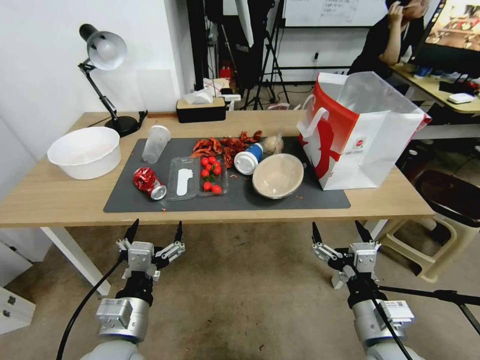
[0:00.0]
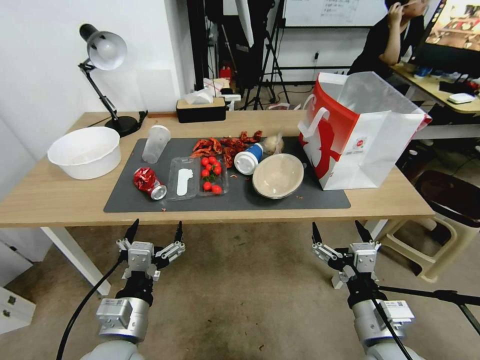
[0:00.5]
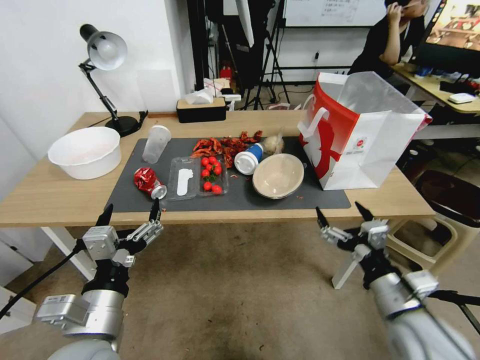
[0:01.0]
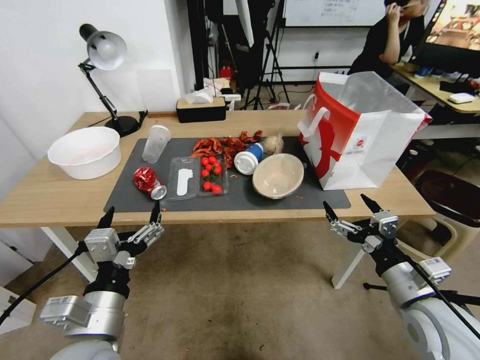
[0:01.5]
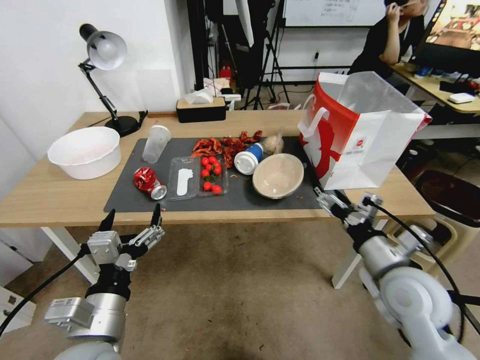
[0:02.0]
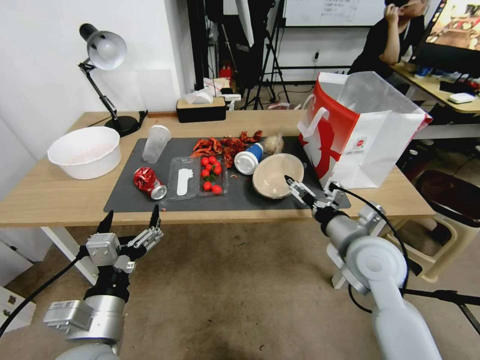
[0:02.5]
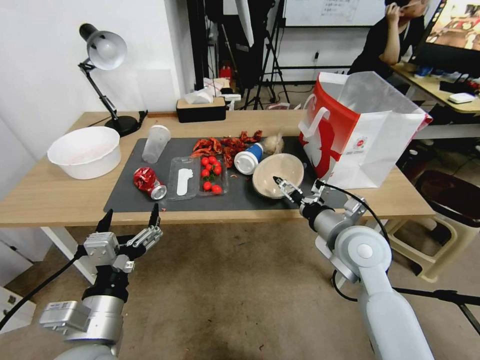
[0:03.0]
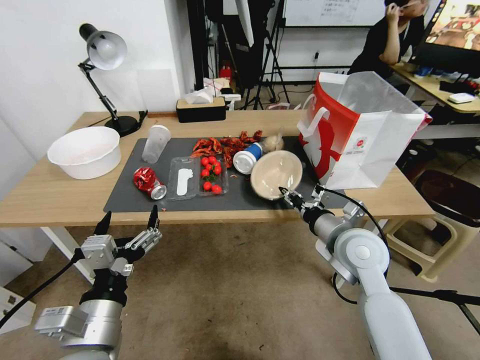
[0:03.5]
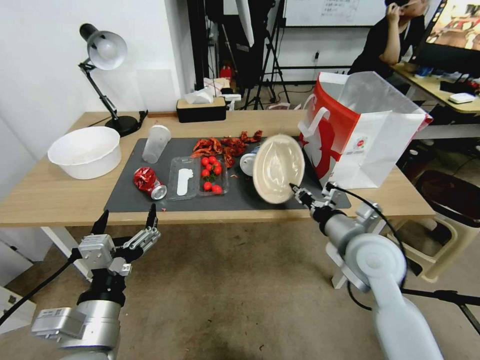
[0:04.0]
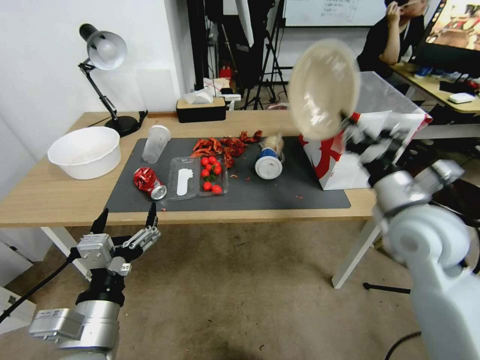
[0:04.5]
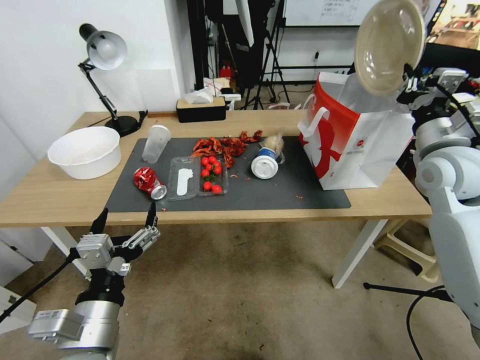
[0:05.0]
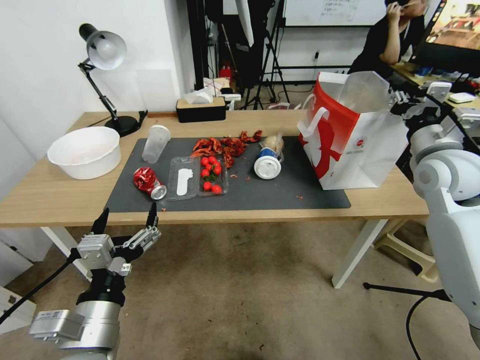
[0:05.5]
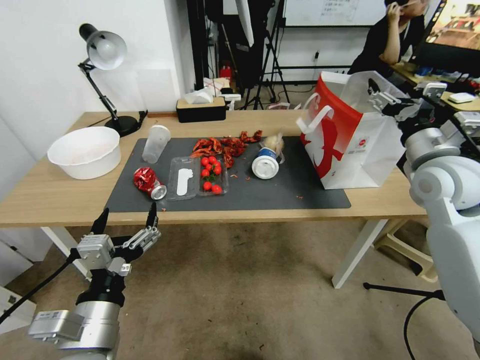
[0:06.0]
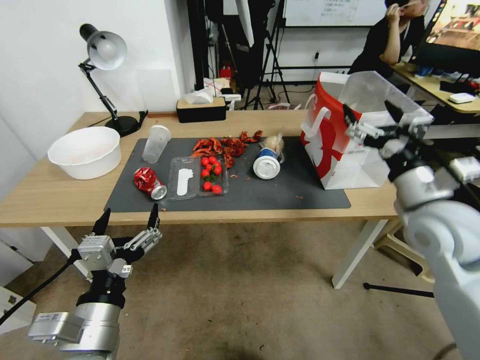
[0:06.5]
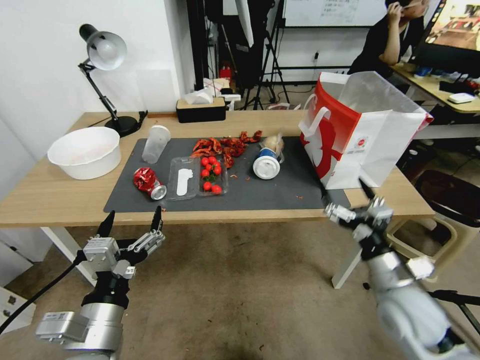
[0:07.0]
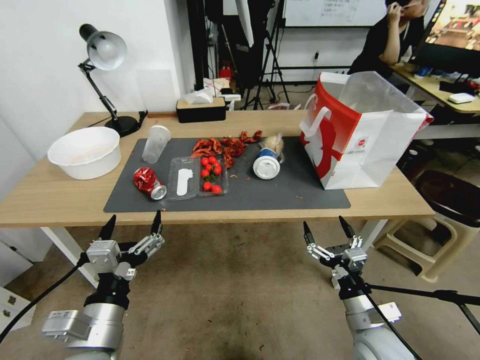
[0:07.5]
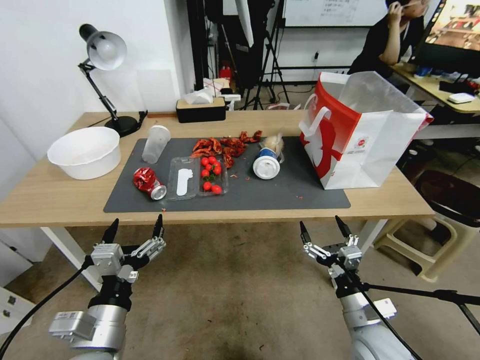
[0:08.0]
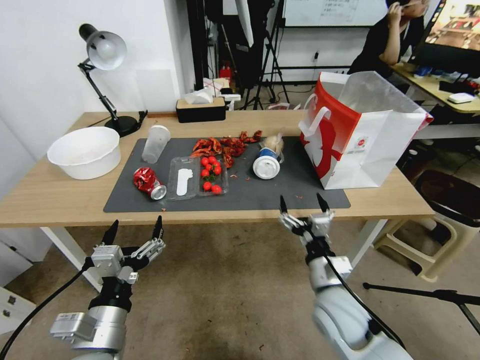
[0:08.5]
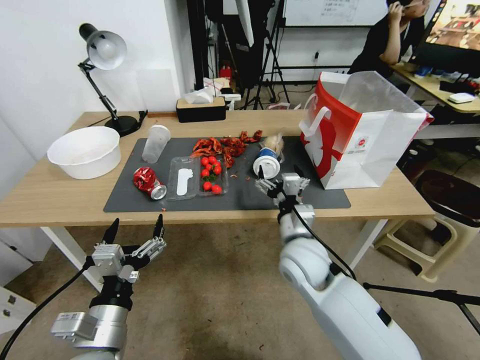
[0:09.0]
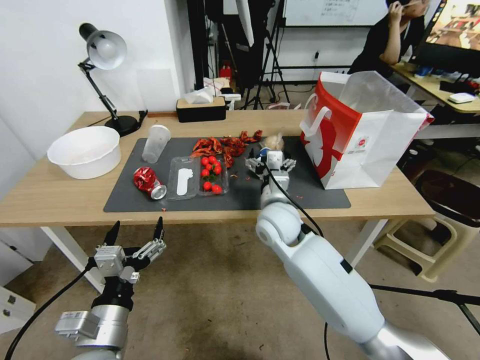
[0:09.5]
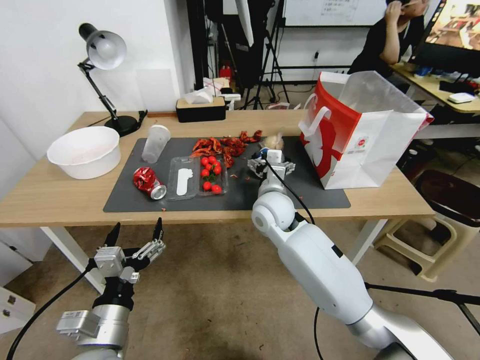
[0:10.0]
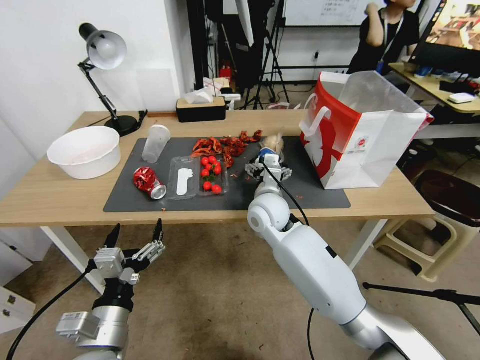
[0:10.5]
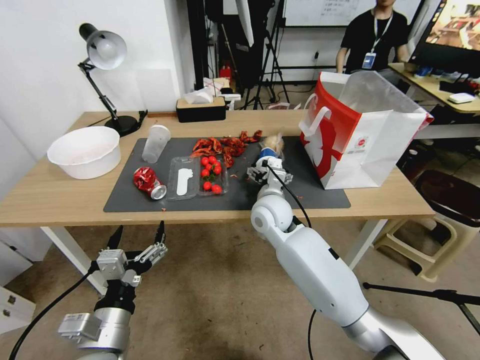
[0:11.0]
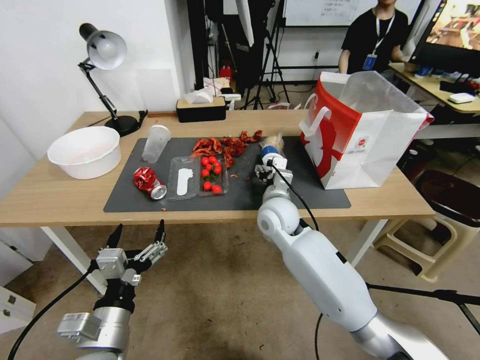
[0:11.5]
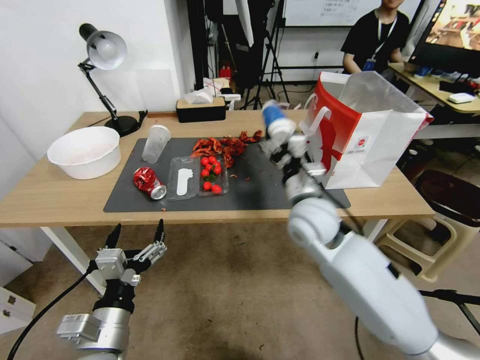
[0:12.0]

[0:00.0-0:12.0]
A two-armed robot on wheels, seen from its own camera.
0:02.0 to 0:04.0: The right gripper shifts roughly 10 cm forward and to the left, and closes up.
0:04.0 to 0:06.0: The right gripper shifts some 20 cm upward, to the right and forward, and opens up.
0:06.0 to 0:08.0: The right gripper goes roughly 35 cm downward and backward.
0:08.0 to 0:10.0: The right gripper goes roughly 35 cm forward, to the left and upward.
0:10.0 to 0:12.0: The right gripper moves to the right, some 5 cm, and closes up.

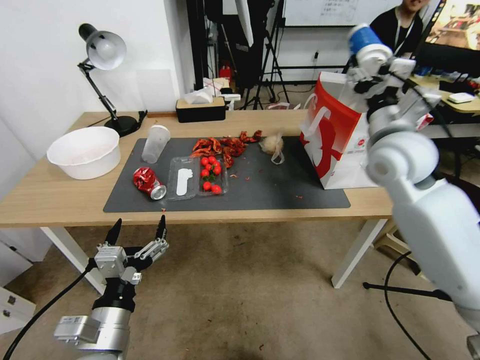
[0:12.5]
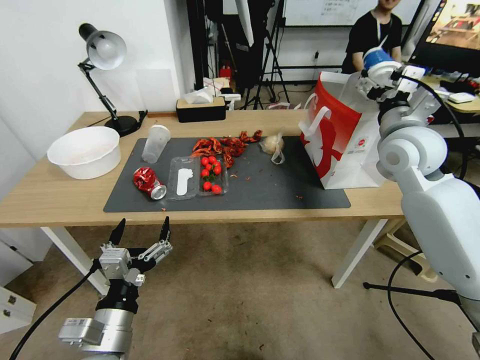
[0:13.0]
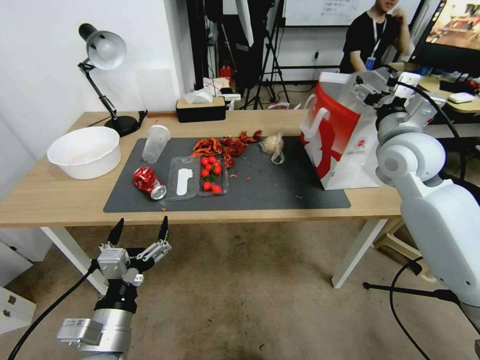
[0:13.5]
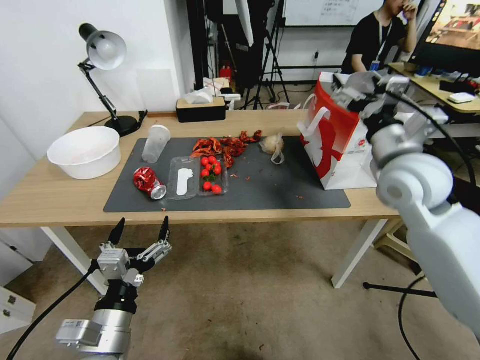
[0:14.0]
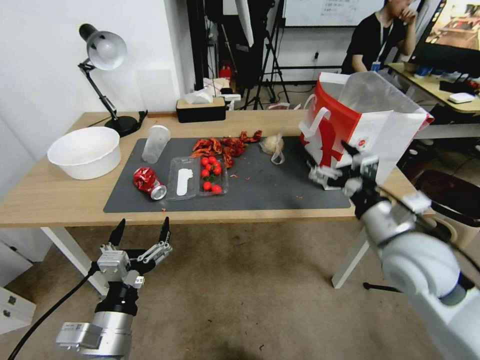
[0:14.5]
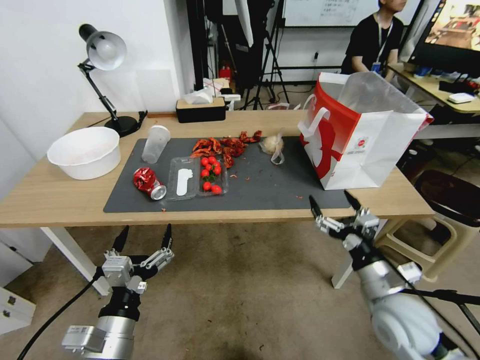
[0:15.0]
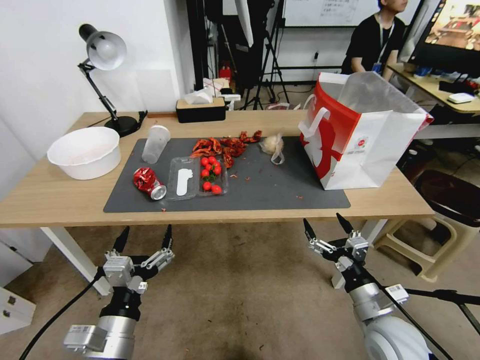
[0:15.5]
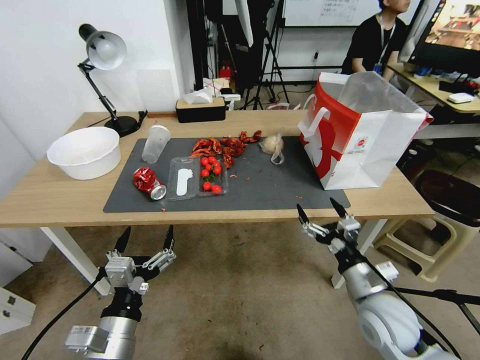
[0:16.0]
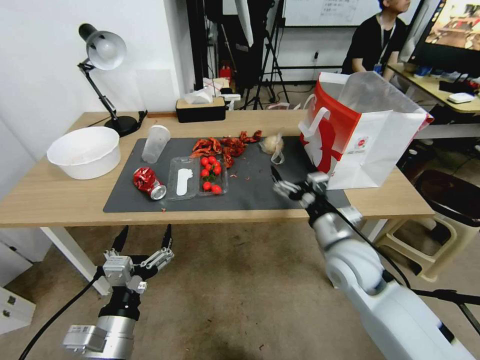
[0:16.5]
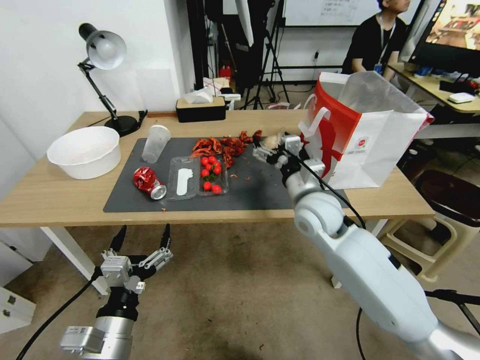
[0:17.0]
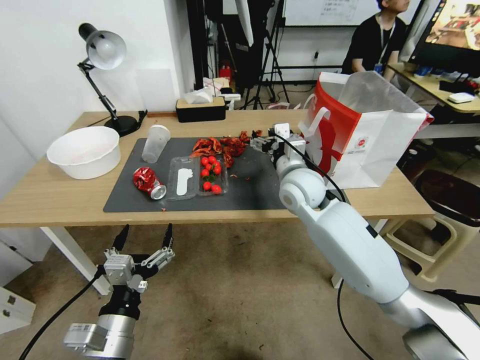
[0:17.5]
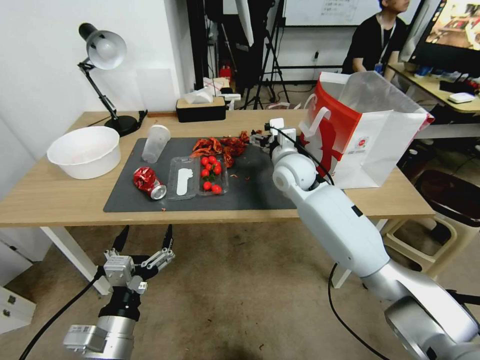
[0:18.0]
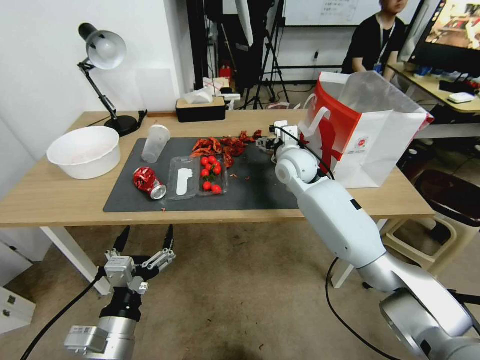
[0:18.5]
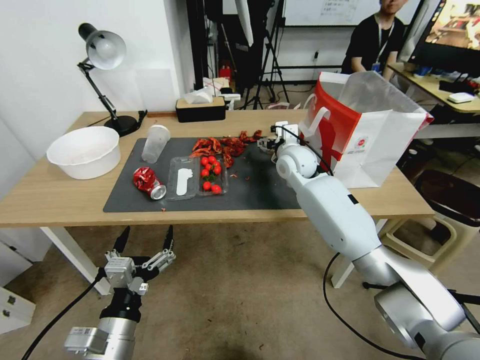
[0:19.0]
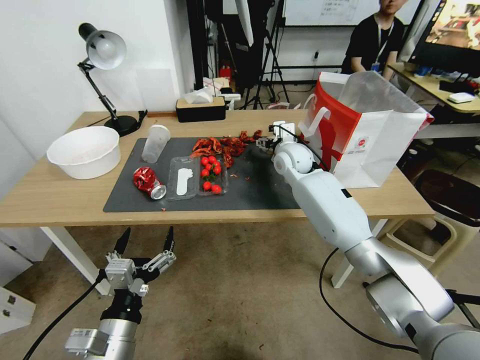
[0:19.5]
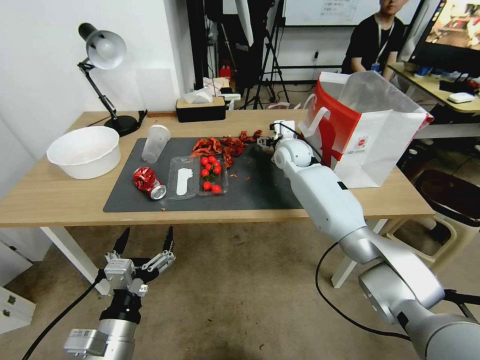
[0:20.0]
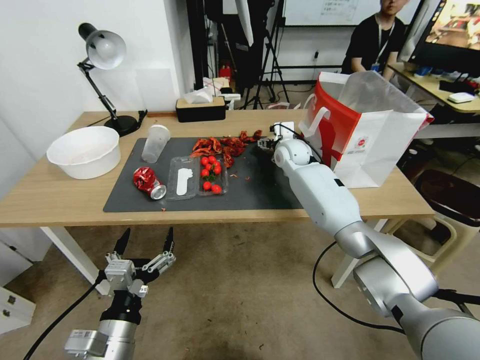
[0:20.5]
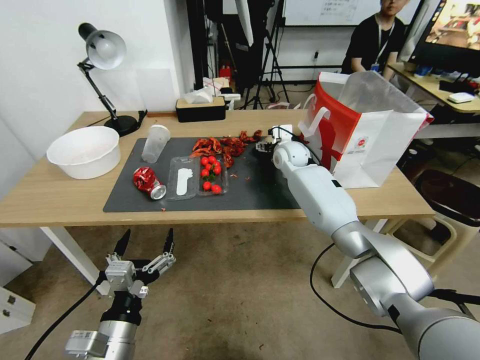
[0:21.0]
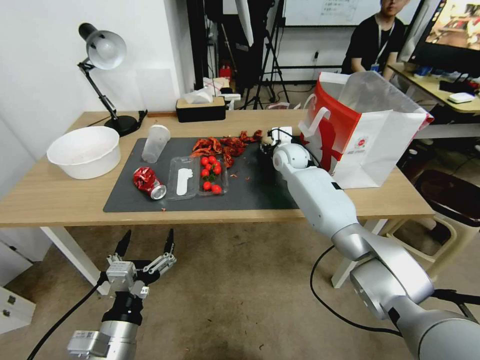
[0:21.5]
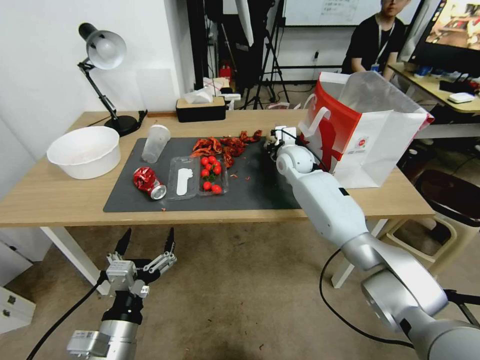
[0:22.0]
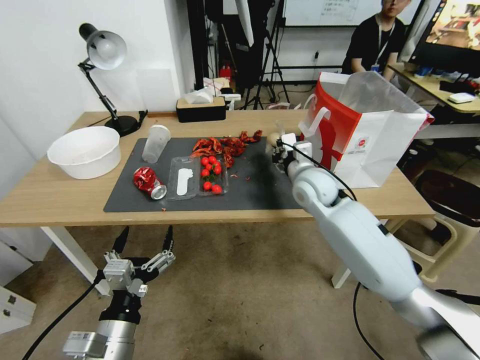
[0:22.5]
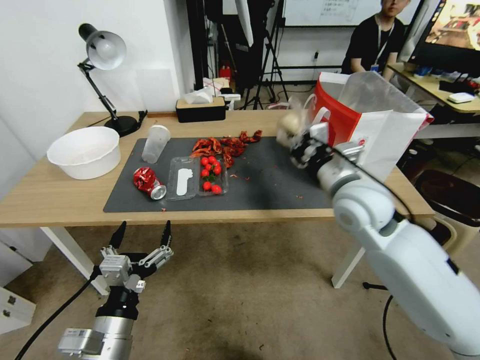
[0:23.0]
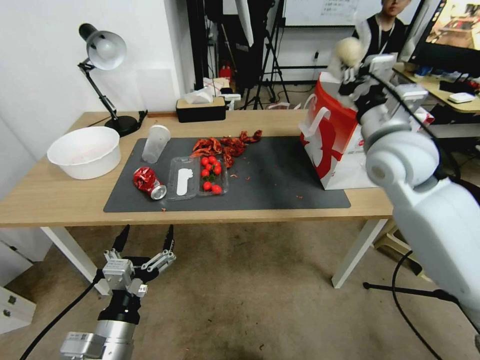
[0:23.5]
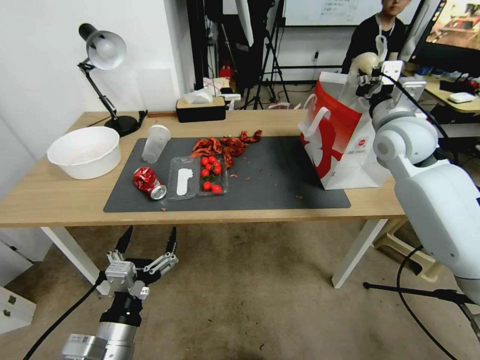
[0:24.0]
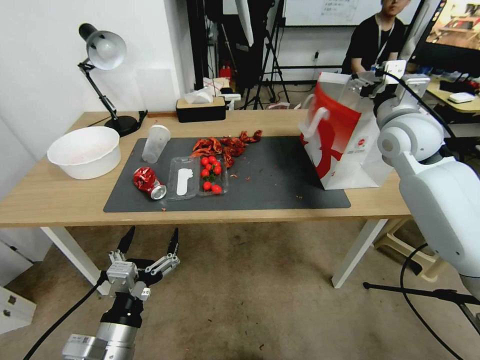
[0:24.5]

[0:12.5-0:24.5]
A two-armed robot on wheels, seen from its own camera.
0:12.5 to 0:14.5: The right gripper is displaced backward, downward and to the right by about 15 cm, and opens up.
0:14.5 to 0:16.5: The right gripper goes about 10 cm downward and to the left.
0:16.5 to 0:18.5: The right gripper travels forward by about 20 cm.
0:18.5 to 0:20.5: The right gripper shifts some 10 cm forward.
0:20.5 to 0:22.5: The right gripper moves backward, some 10 cm, and closes.
0:22.5 to 0:24.5: The right gripper heads upward and to the right, covering roughly 20 cm, and opens.

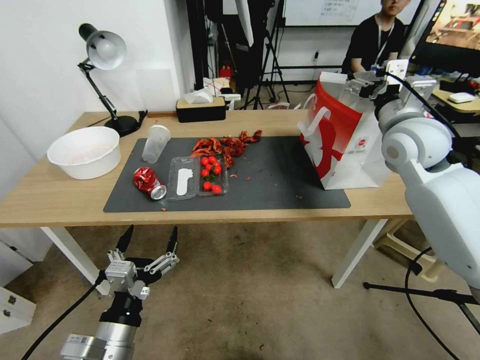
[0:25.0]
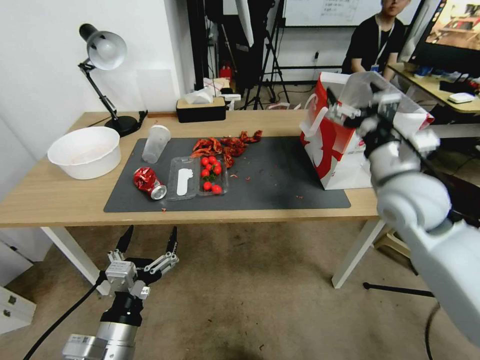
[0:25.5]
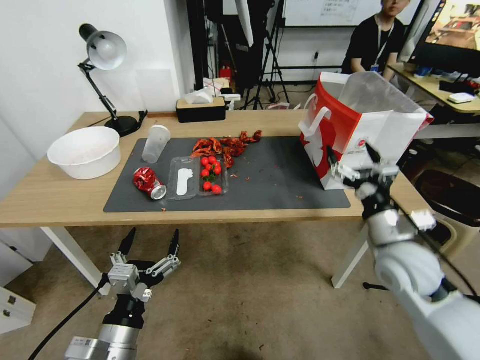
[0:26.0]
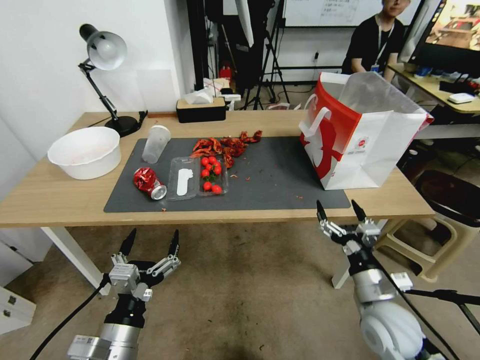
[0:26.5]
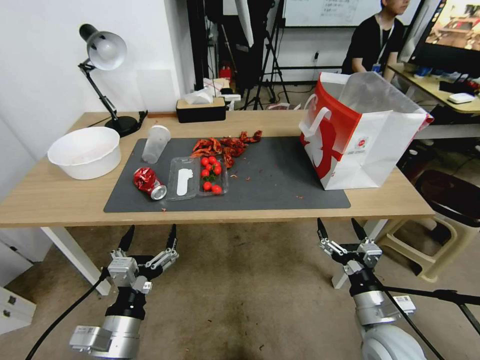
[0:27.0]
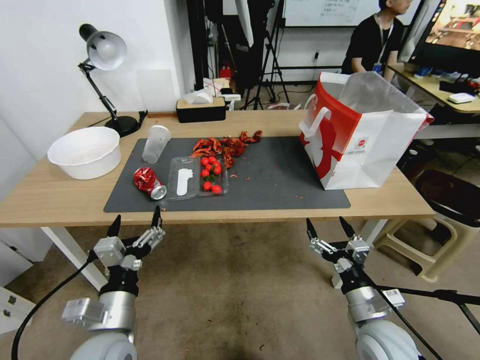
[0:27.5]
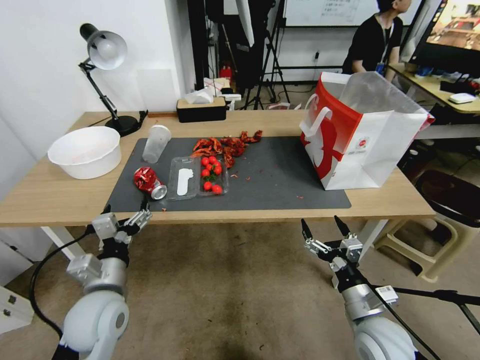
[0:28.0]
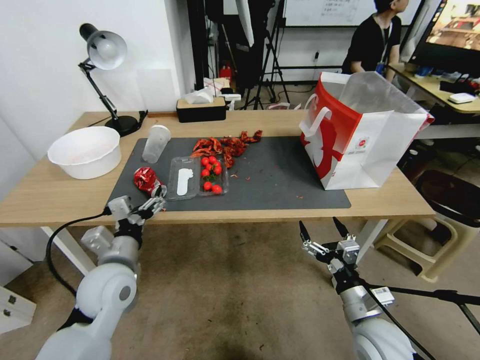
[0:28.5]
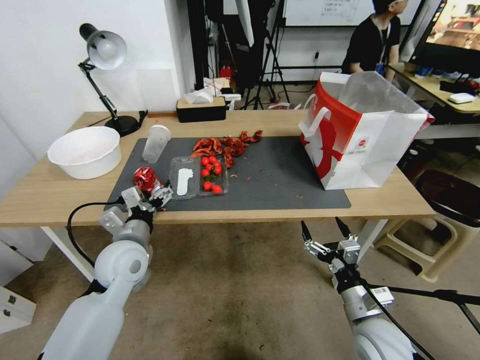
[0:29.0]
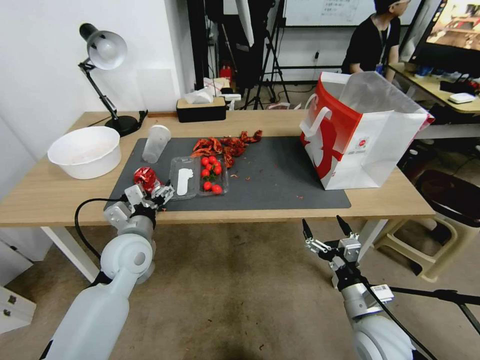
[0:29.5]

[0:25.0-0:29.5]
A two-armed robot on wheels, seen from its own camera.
0:25.0 to 0:27.0: The right gripper goes roughly 40 cm downward and backward.
0:27.0 to 0:29.5: The left gripper heads forward, covering some 20 cm.
